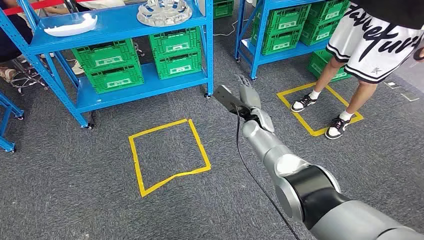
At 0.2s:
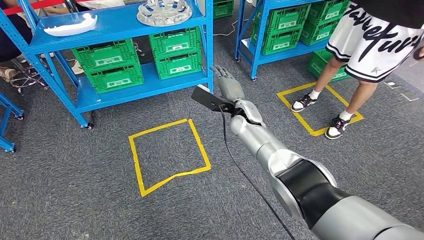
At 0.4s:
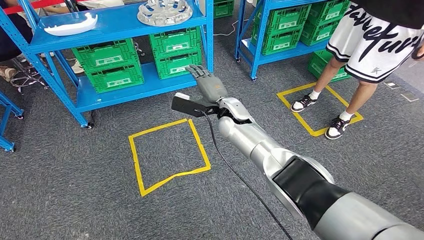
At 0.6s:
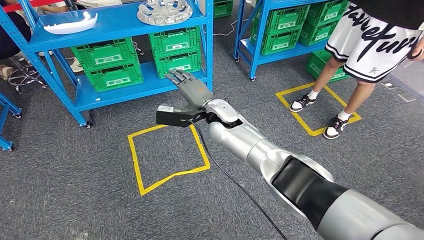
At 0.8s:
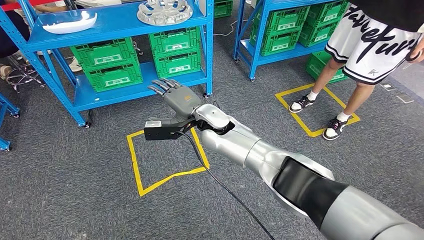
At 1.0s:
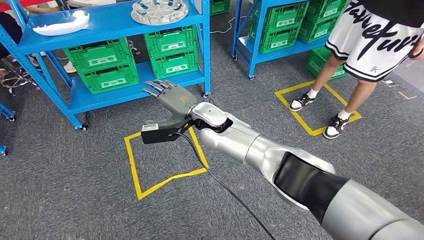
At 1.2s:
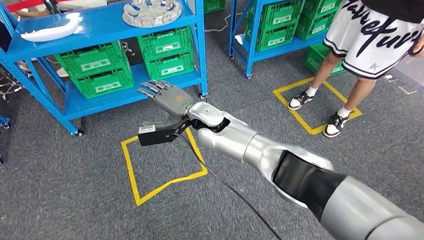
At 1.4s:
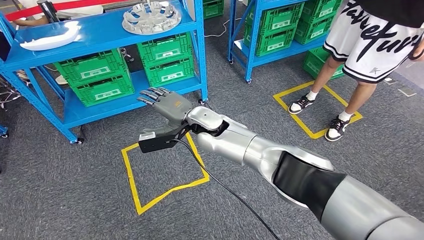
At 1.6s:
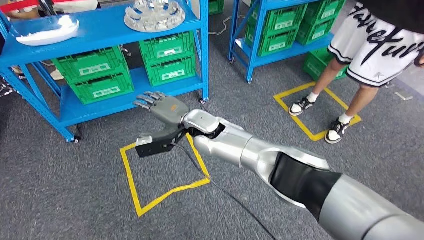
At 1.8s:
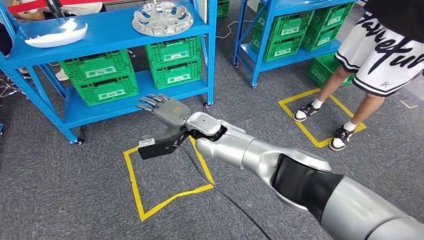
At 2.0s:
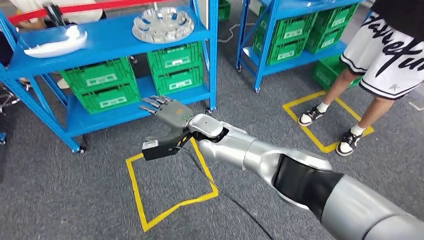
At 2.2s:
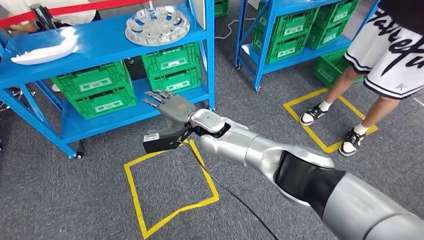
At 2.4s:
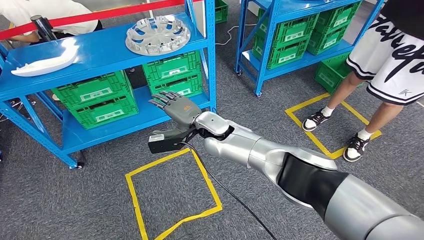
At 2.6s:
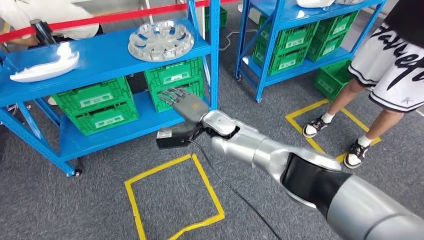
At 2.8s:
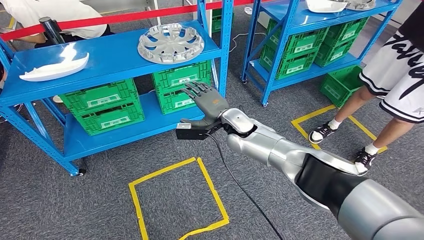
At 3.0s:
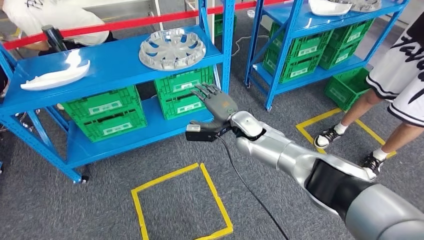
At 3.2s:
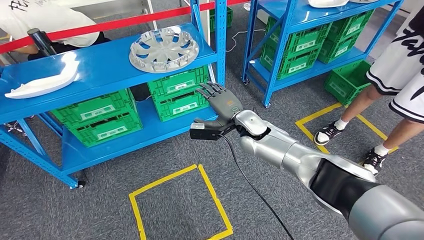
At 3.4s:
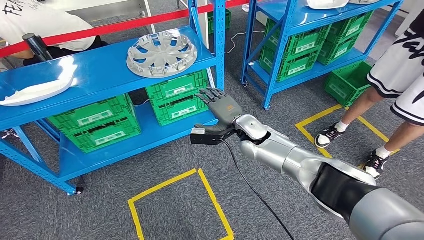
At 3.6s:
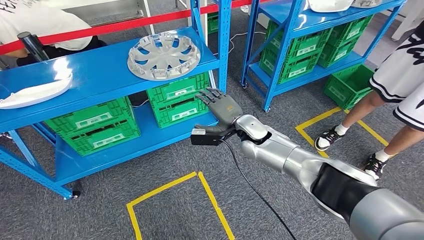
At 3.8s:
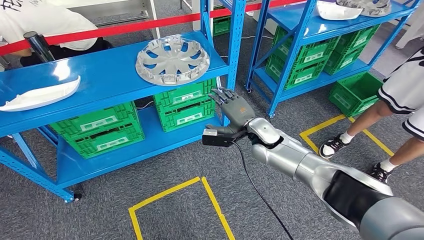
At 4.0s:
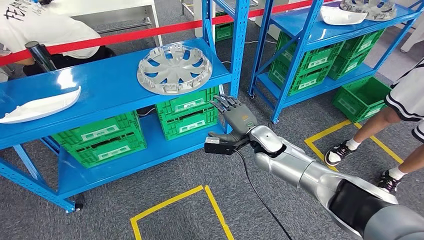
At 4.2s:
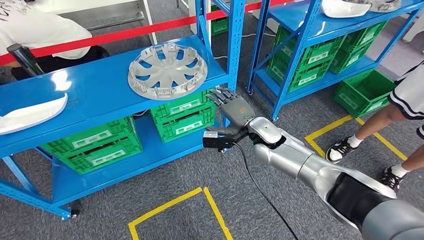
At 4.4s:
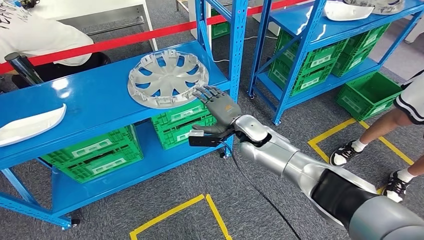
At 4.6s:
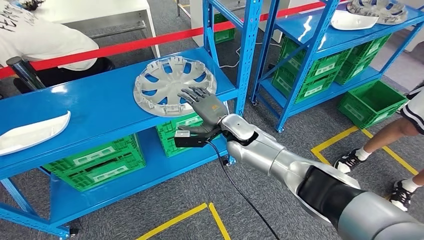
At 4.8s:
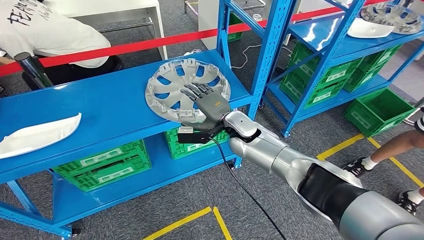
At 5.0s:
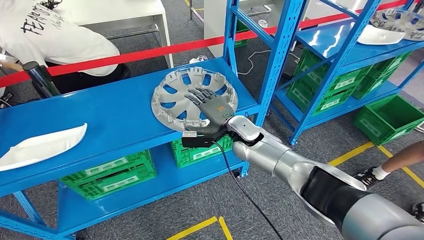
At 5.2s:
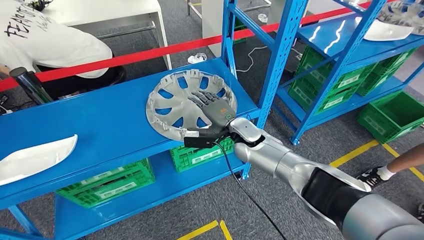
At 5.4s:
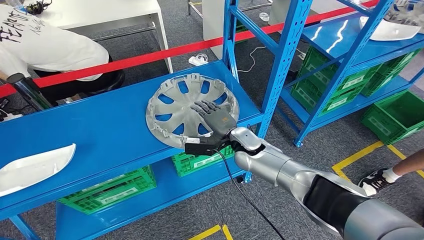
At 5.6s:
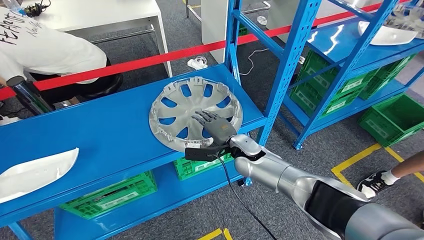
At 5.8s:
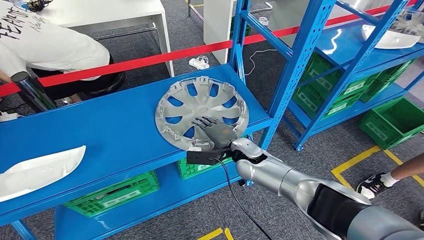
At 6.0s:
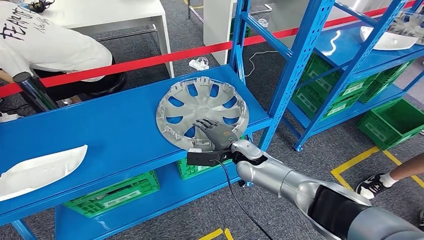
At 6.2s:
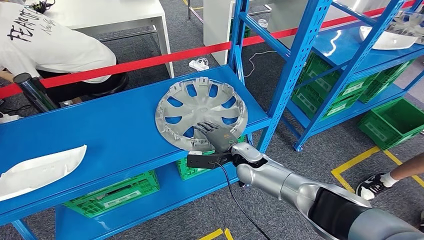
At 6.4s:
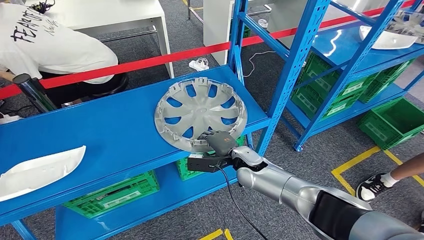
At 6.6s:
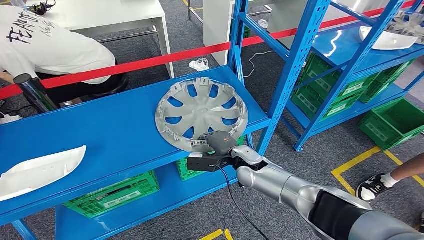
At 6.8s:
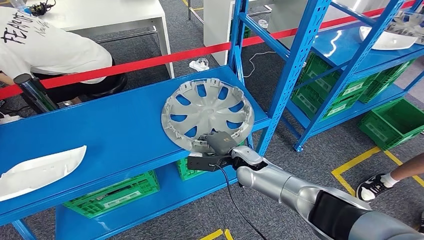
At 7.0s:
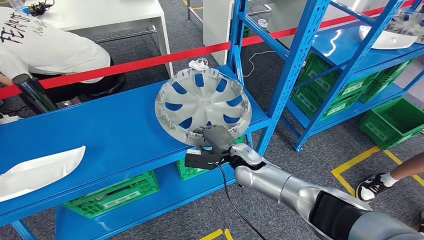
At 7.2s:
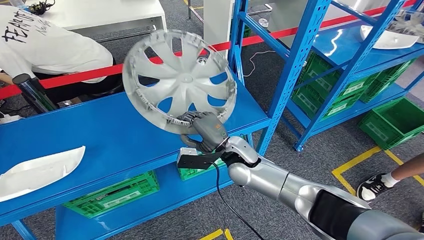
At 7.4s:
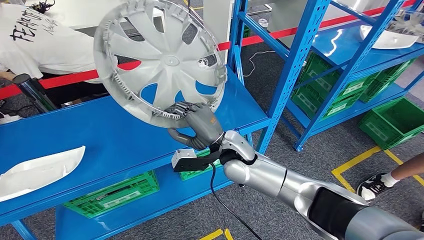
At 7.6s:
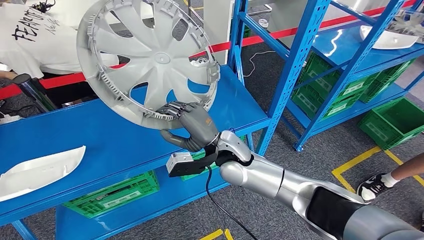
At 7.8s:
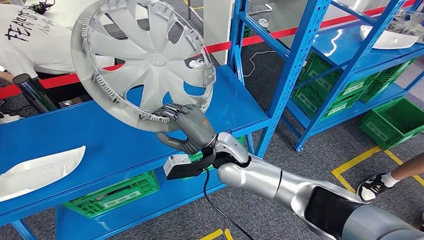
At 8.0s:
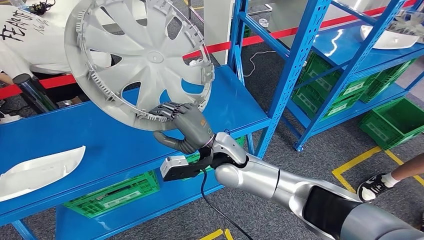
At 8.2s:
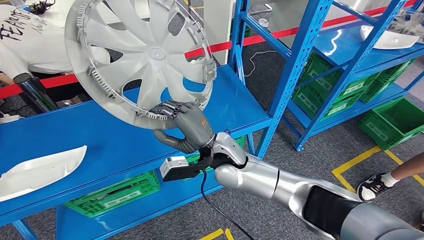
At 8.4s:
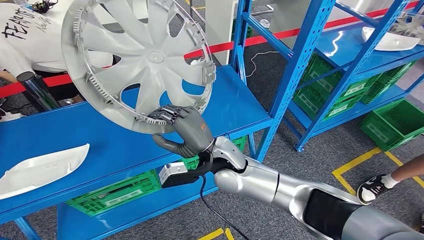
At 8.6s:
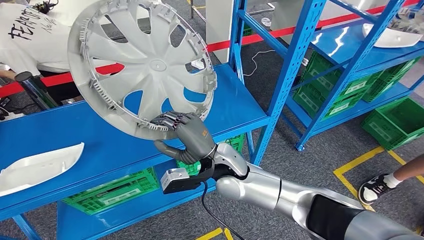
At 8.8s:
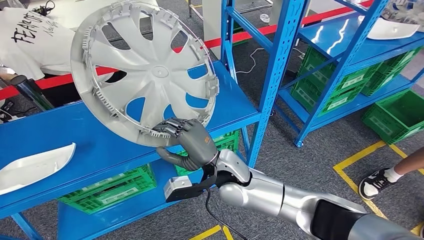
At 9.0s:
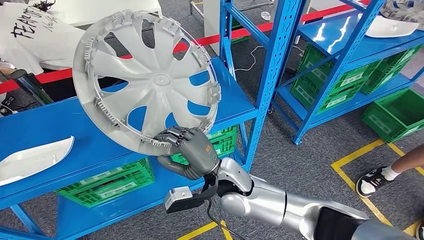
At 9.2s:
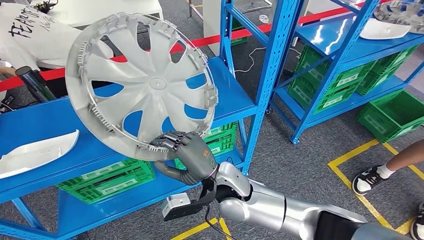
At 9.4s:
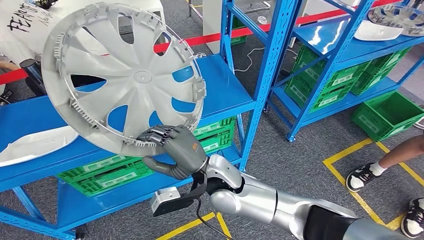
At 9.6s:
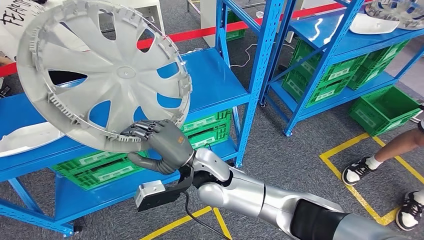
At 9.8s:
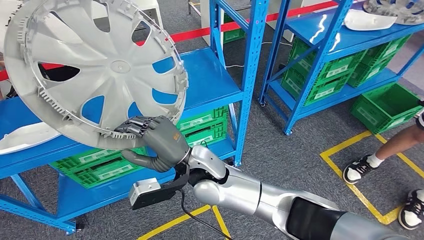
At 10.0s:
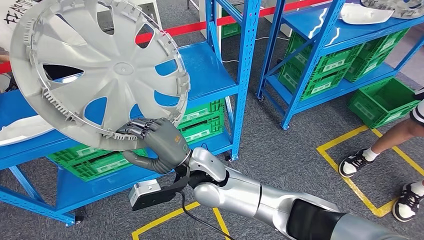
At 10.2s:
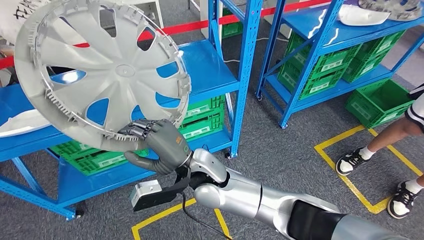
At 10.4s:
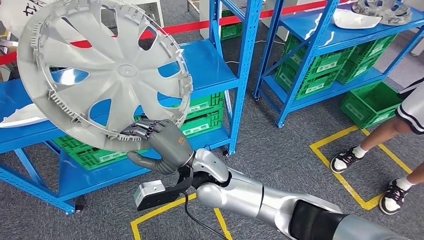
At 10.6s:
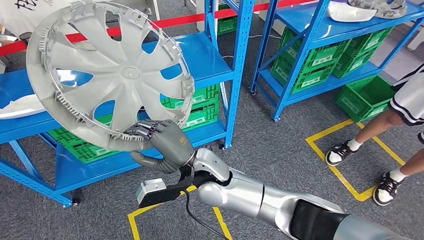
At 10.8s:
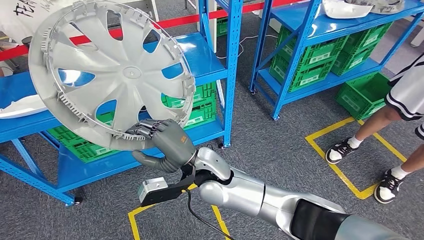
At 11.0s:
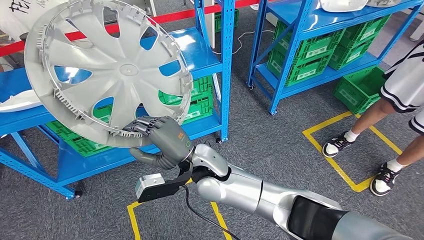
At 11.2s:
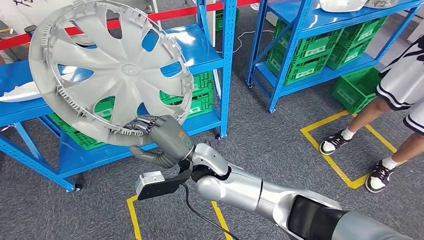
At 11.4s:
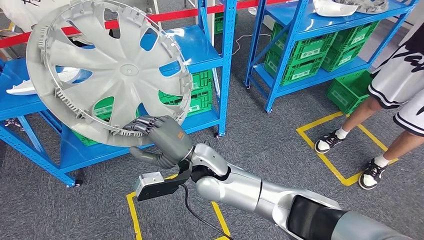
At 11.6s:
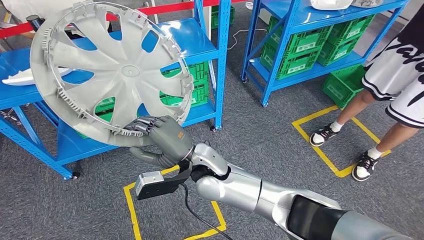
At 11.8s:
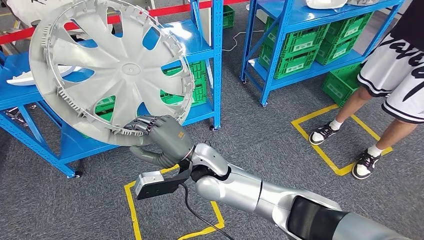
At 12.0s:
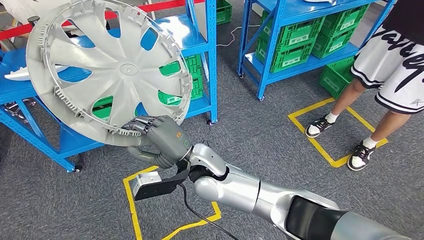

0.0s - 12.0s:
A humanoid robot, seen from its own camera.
Step, 0.0s - 8.4s: Pick up the small parts from the shelf.

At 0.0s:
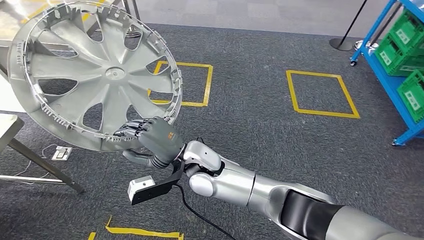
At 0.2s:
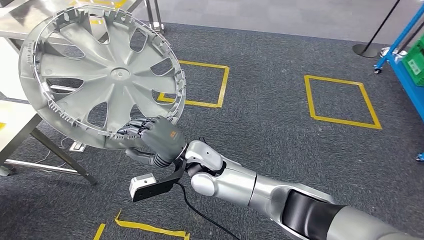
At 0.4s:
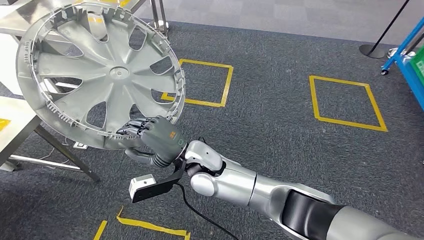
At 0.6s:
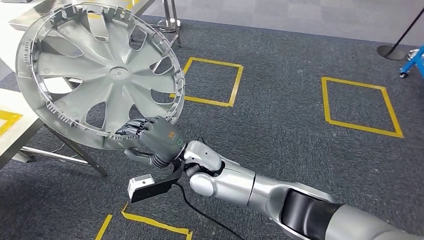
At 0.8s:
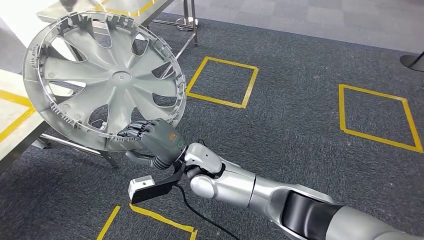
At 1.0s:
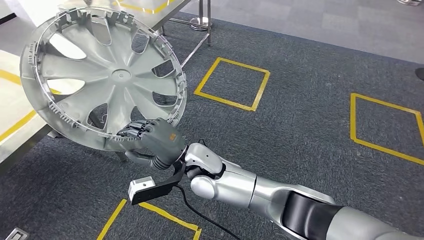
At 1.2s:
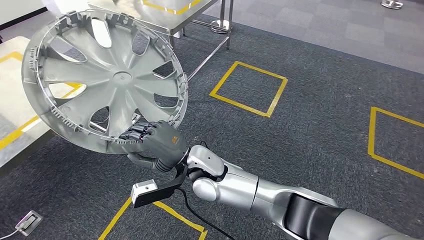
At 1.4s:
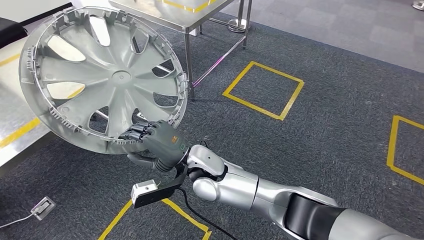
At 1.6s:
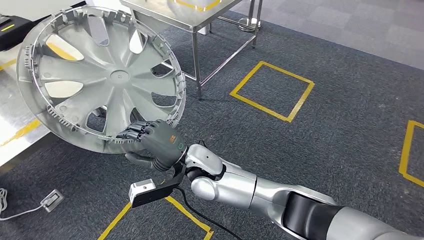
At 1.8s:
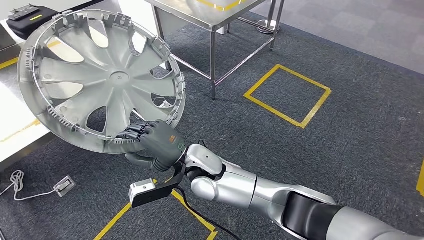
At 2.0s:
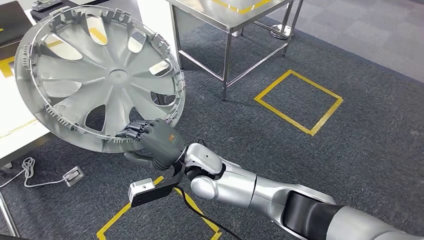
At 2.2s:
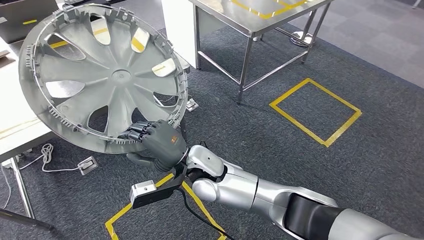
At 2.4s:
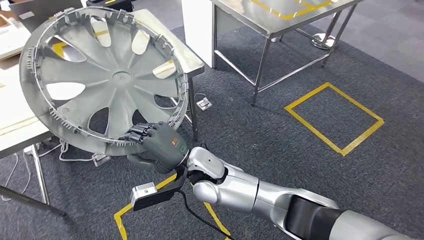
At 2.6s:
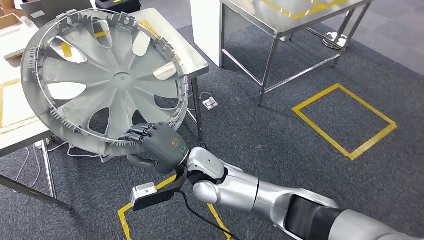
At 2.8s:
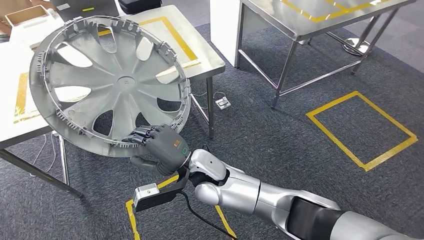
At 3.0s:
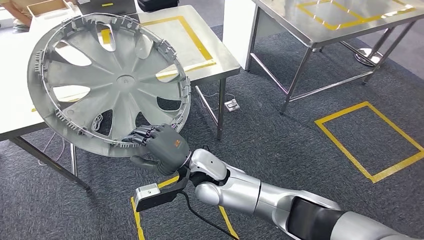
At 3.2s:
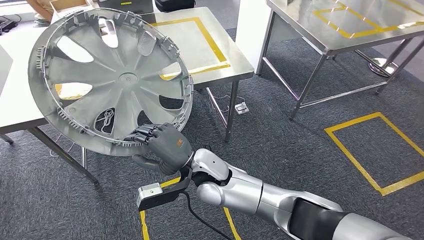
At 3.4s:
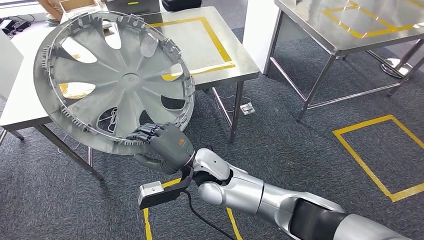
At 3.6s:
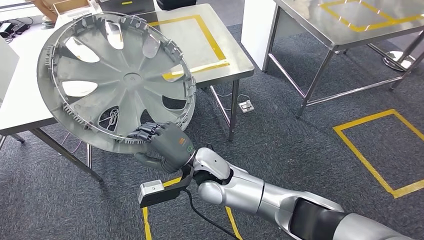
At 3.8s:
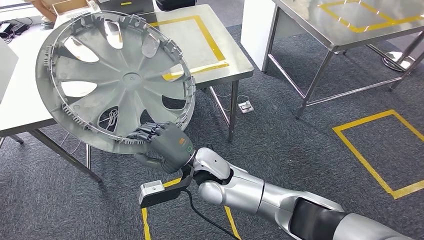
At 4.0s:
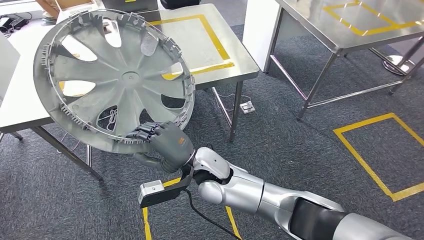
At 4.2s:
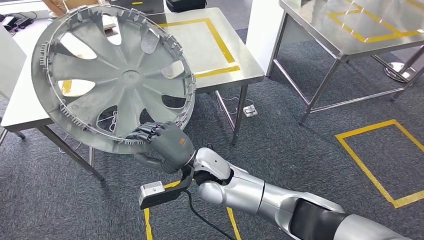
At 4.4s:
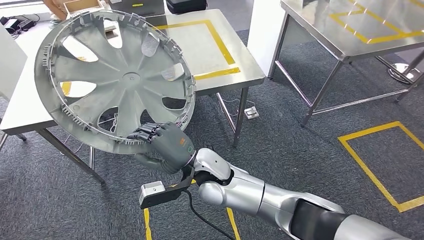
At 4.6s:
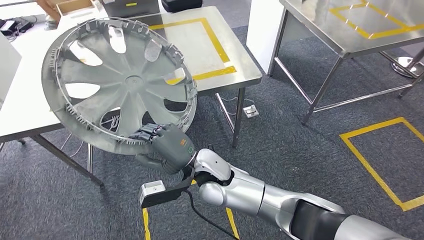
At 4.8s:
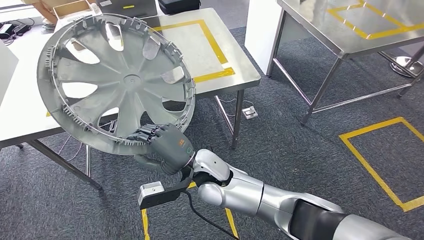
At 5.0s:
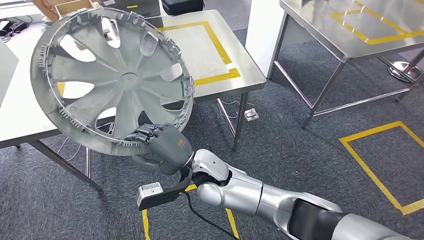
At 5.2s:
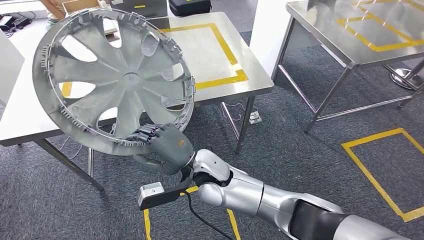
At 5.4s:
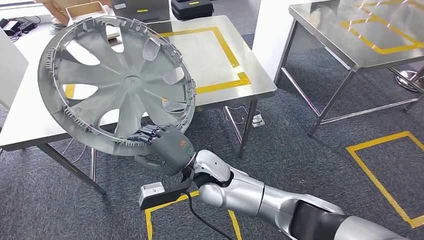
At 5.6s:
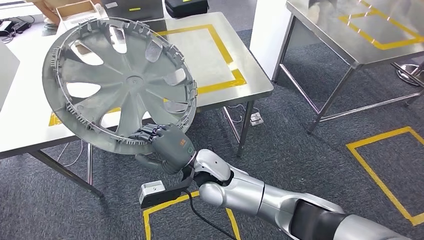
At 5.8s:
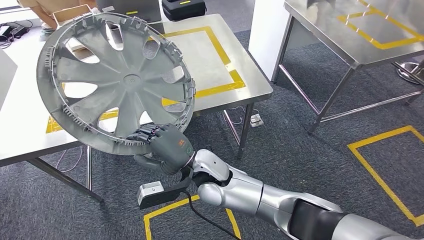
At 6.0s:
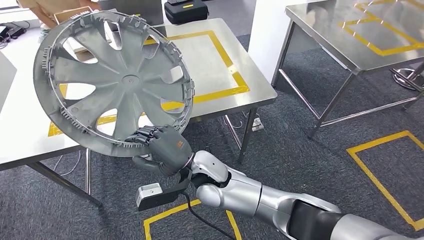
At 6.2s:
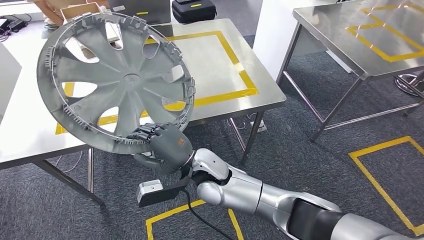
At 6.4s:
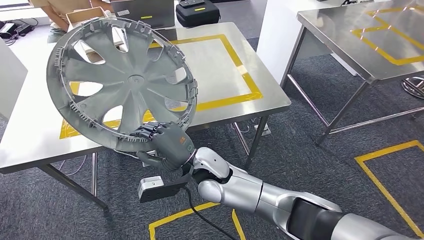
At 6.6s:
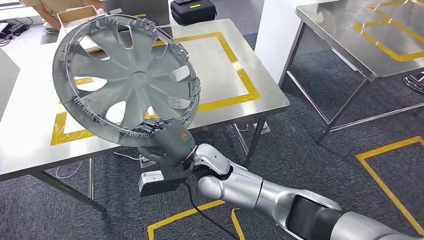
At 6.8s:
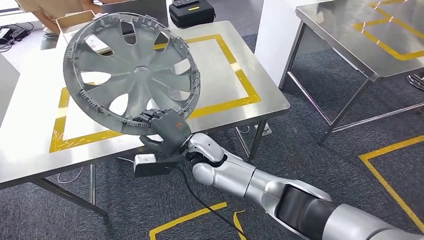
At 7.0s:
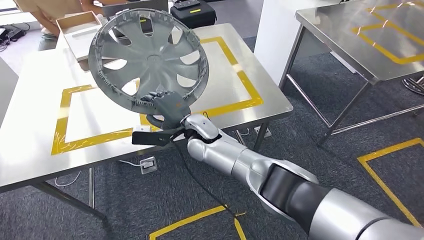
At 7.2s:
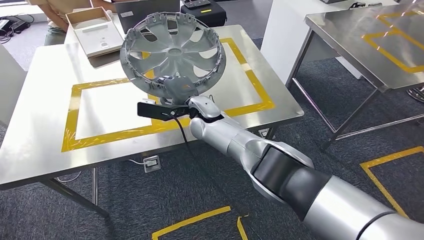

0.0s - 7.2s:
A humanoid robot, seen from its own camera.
Step, 0.0s - 6.8s: Move the small parts to the workbench.
